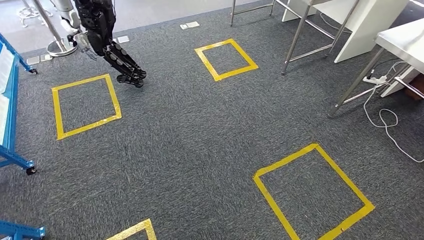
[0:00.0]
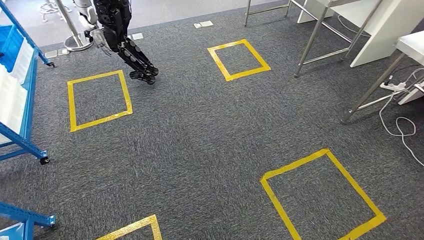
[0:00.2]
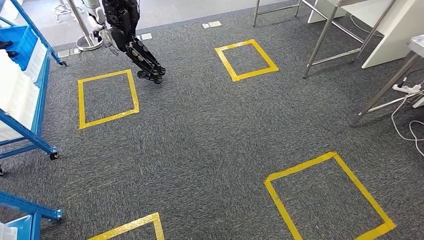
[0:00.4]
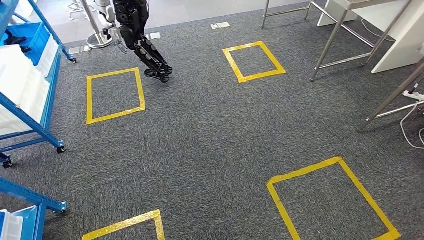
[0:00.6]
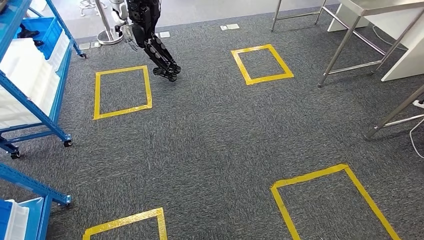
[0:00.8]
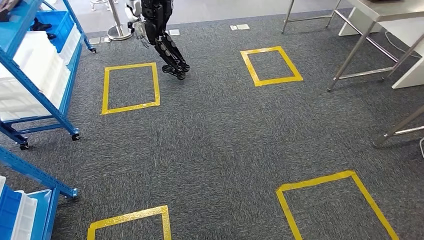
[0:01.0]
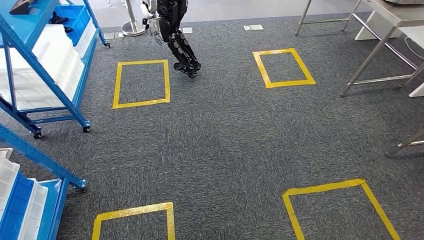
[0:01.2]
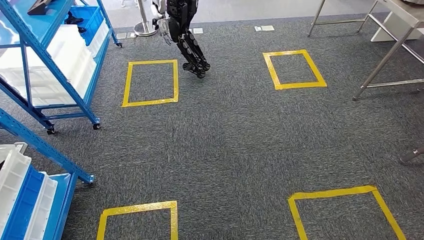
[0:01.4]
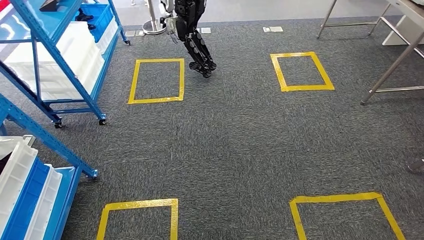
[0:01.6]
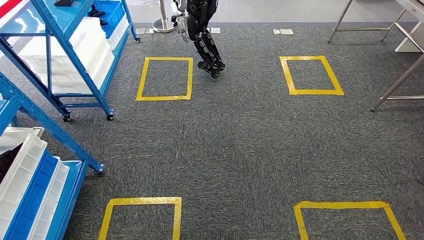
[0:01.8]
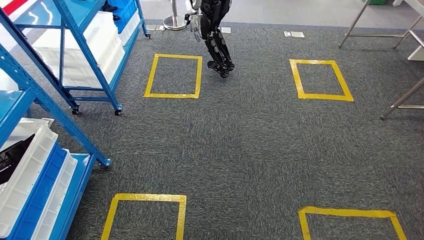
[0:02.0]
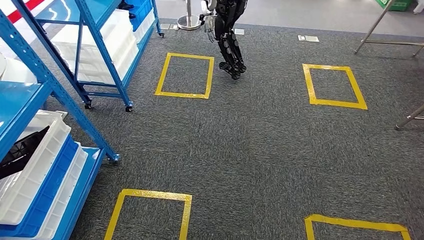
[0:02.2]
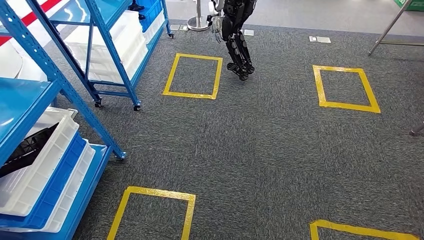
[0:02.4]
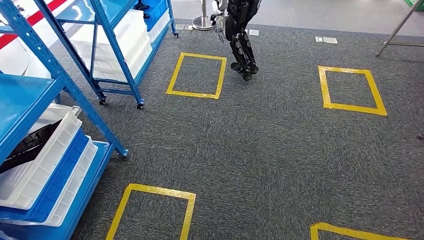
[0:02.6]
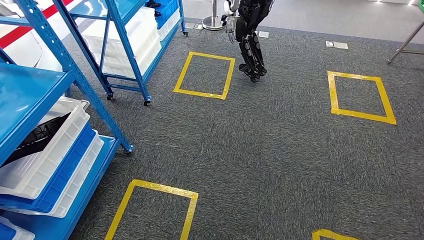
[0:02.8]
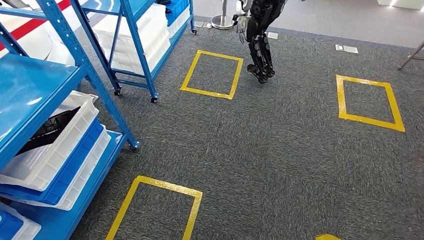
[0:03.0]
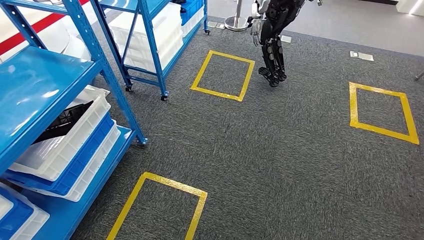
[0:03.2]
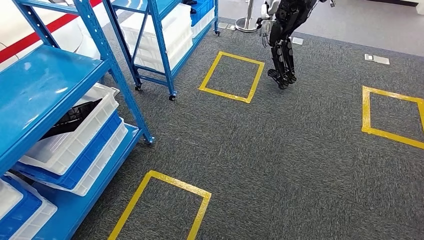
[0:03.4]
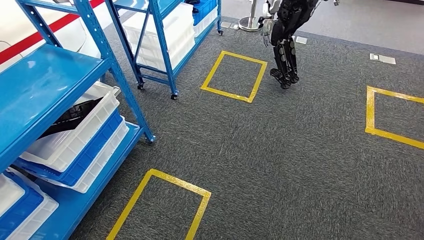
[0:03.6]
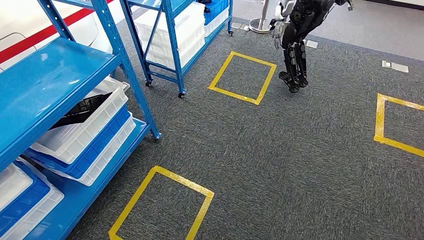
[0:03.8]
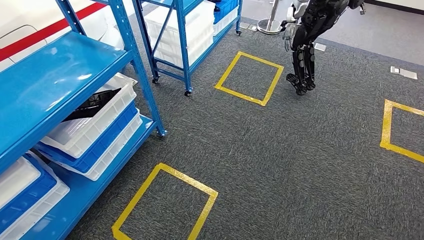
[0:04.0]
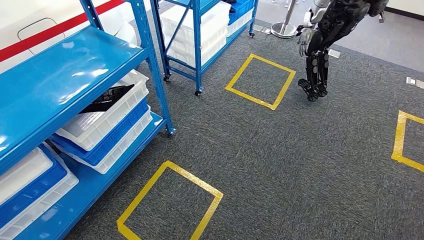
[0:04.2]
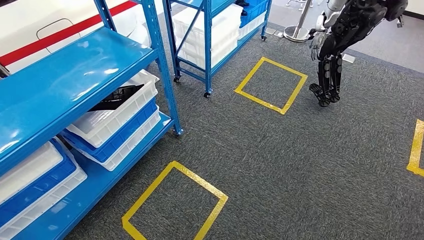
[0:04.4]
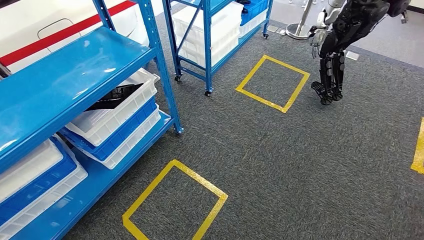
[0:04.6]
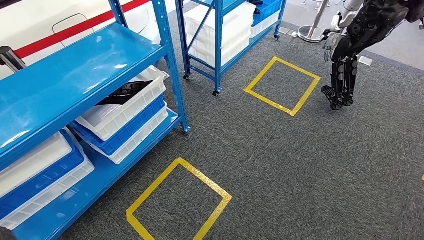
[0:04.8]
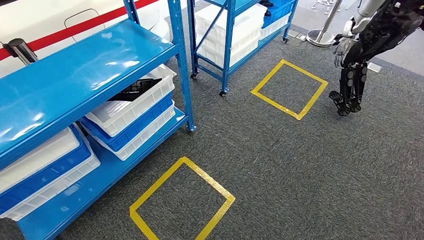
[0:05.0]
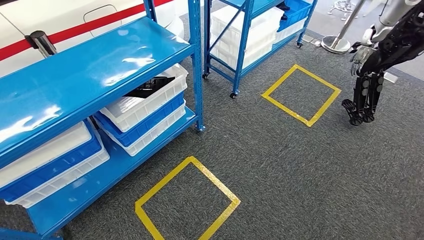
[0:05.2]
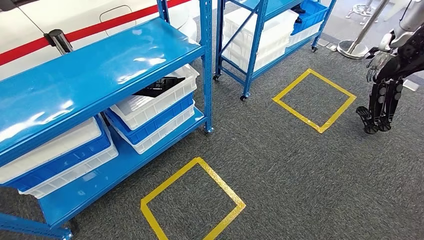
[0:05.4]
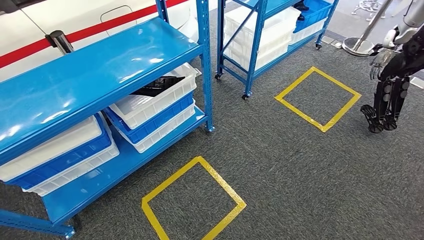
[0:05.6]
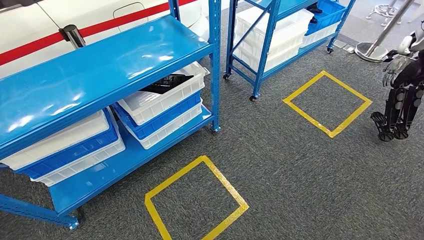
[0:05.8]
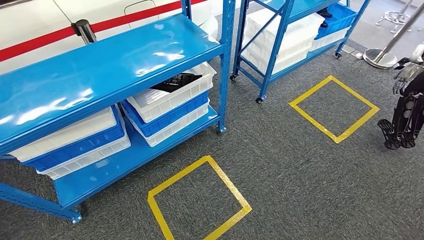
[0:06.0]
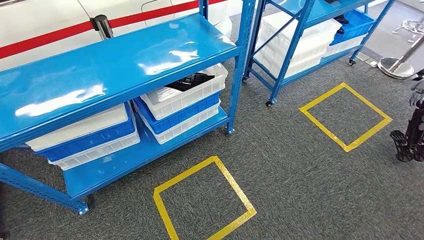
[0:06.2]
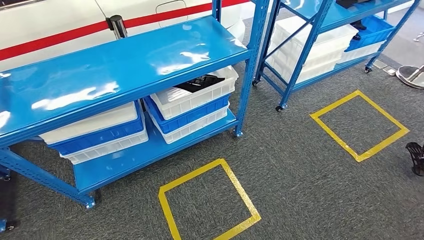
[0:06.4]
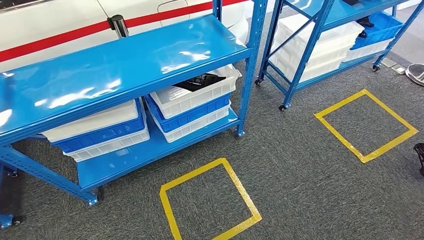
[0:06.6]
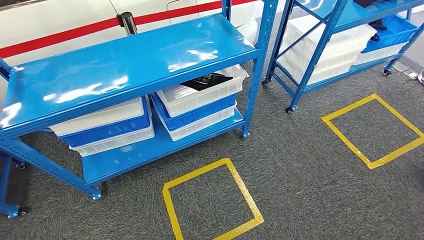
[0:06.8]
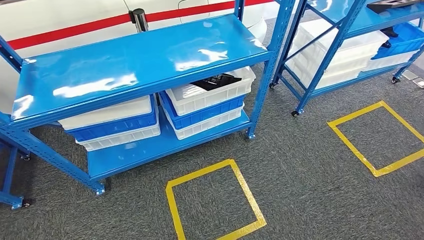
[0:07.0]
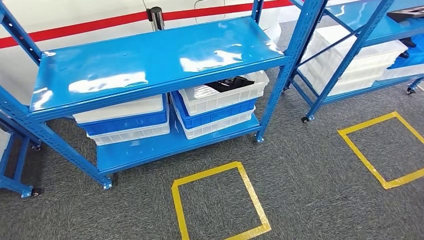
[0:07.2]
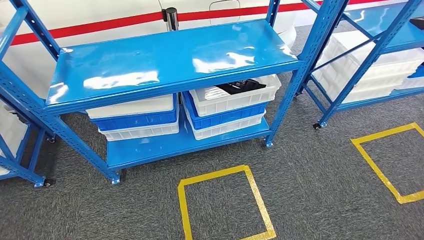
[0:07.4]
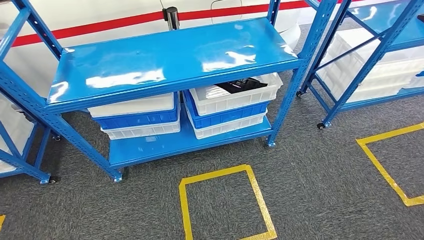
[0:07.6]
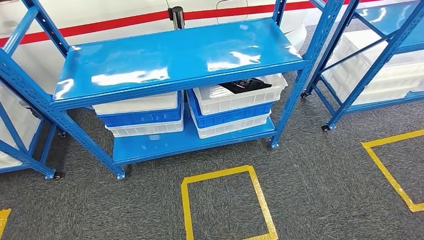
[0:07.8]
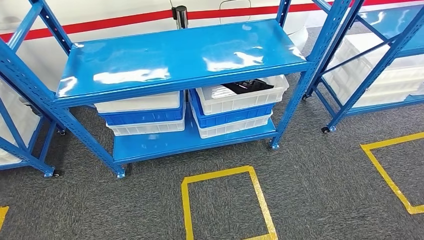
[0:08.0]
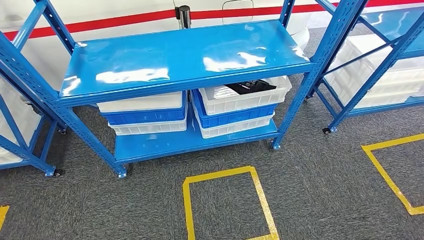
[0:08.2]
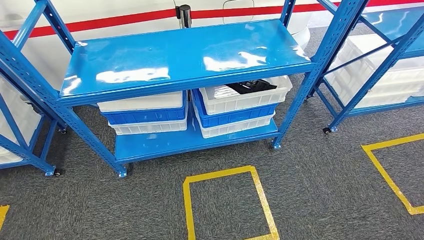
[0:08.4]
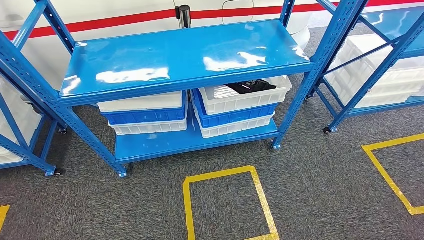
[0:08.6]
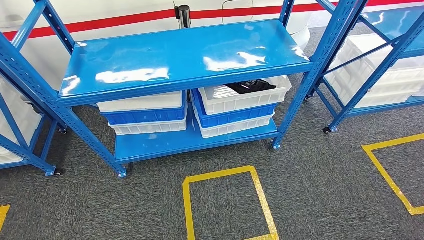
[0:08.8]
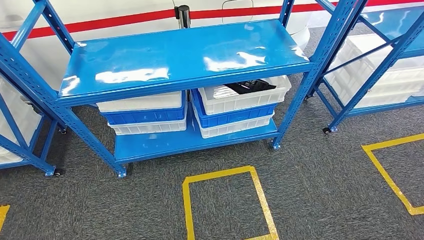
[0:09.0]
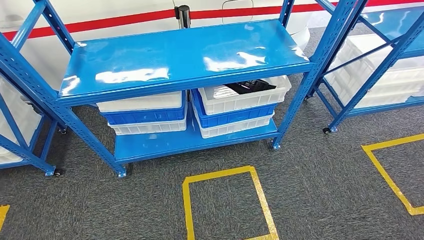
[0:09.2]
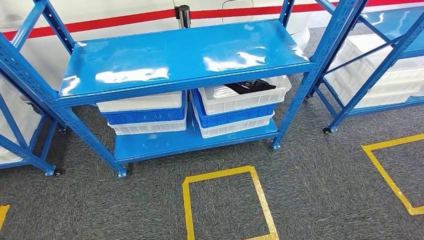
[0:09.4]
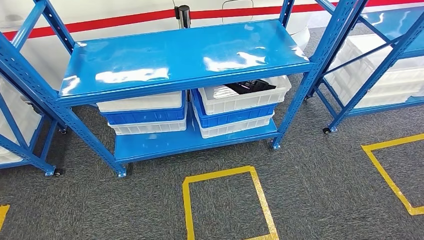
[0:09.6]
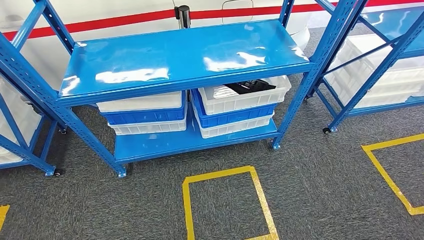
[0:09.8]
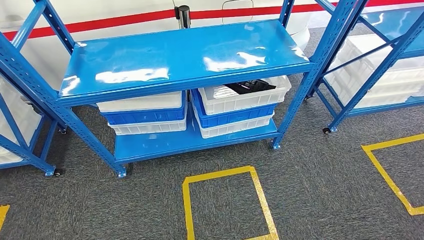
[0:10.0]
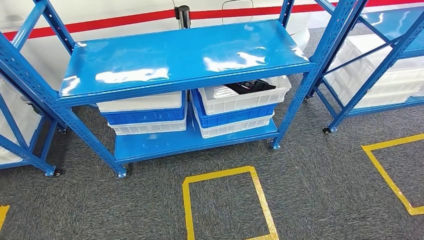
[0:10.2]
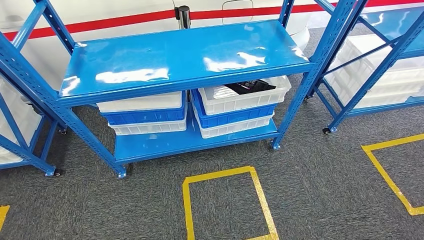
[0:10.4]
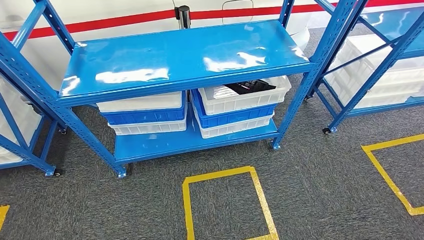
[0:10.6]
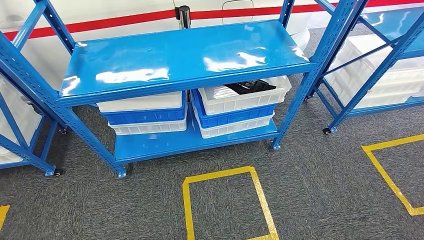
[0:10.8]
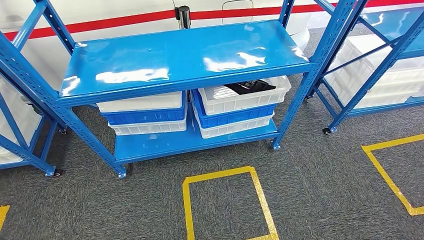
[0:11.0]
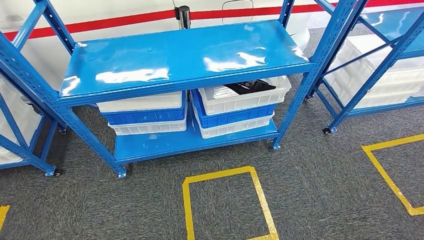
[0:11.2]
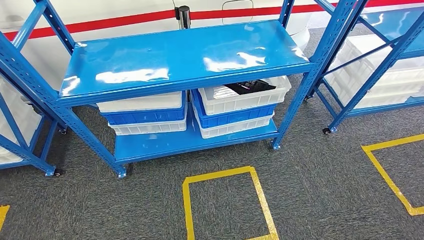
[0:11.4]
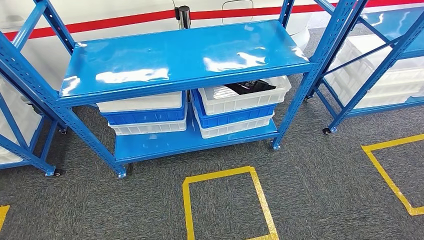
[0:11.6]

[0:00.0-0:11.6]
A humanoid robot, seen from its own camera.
Step, 0:00.0 to 0:11.6: Move to the initial position of the shelf.
